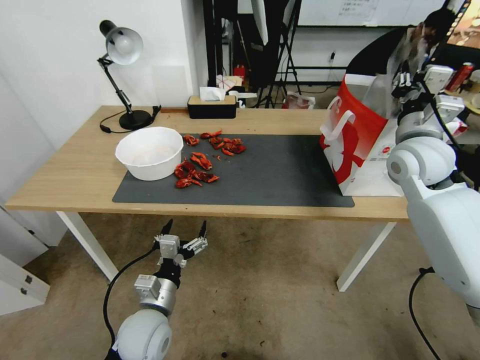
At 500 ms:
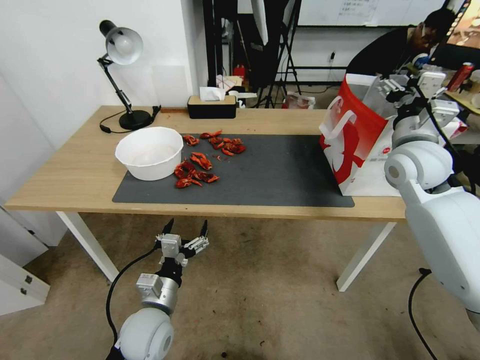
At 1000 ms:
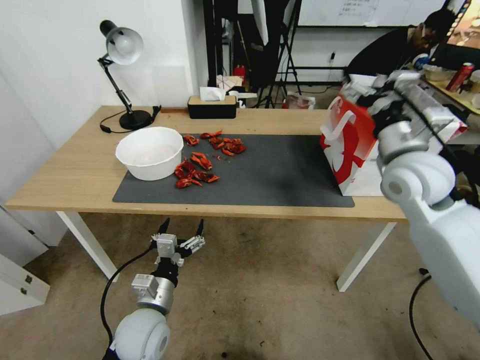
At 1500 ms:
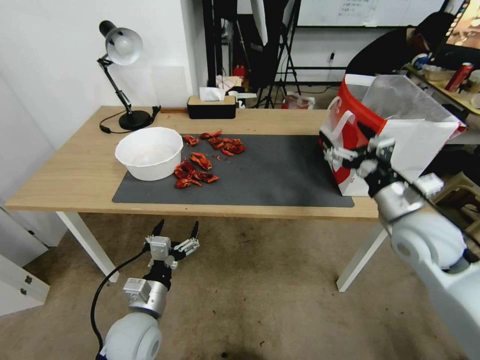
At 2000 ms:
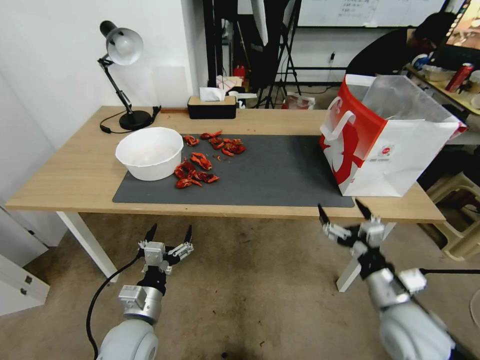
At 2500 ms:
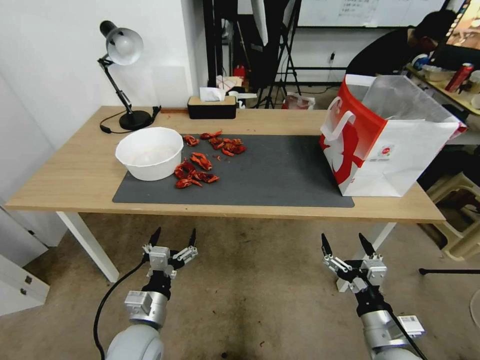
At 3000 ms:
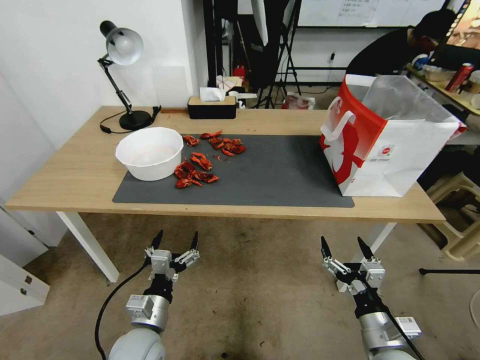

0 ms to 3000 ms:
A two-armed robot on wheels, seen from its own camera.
Task of the whole recording: Close the takeout container lid, then place the container into the takeout bag.
0 ms to 1500 ms: The right gripper travels backward and downward by about 15 cm, and opens up.
1500 ms to 3000 ms: The right gripper travels downward and backward by about 25 cm.
